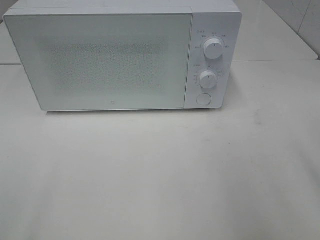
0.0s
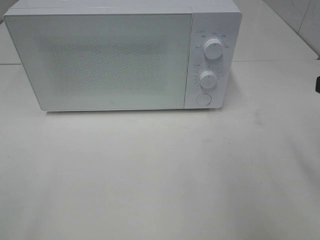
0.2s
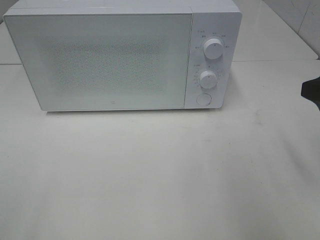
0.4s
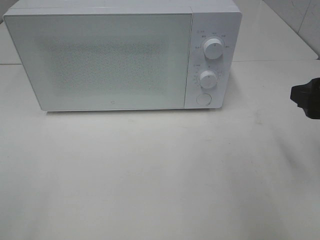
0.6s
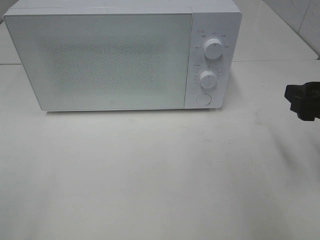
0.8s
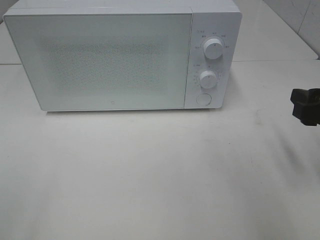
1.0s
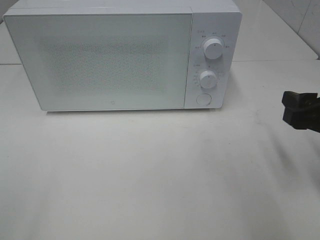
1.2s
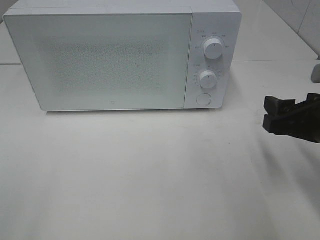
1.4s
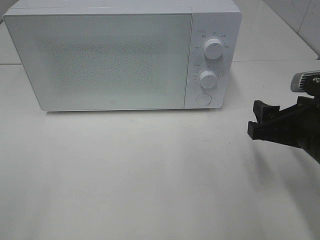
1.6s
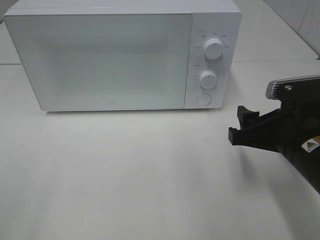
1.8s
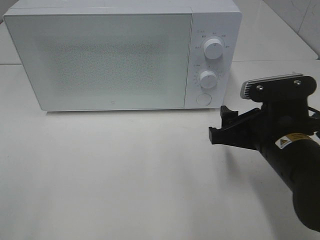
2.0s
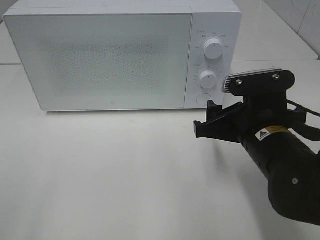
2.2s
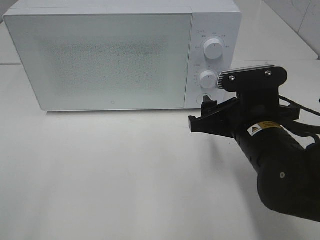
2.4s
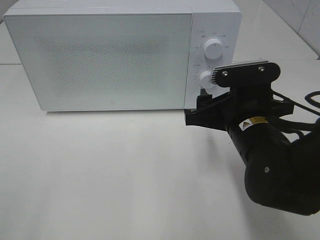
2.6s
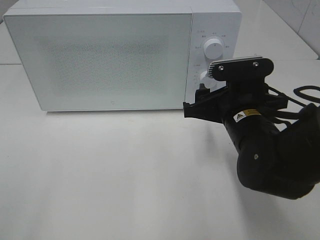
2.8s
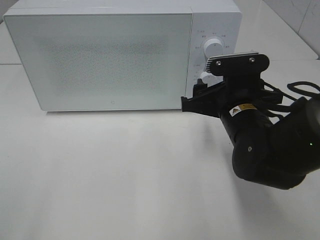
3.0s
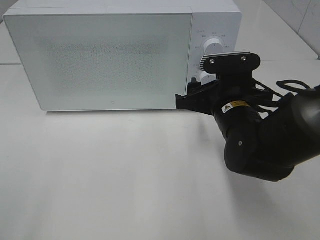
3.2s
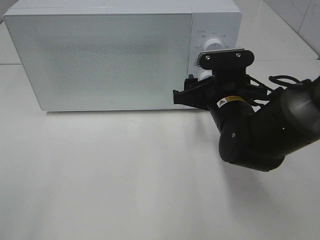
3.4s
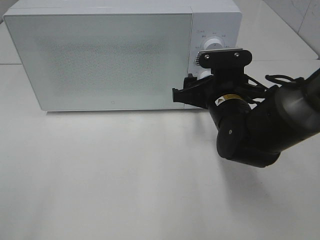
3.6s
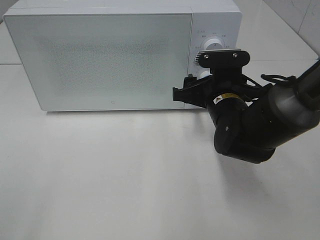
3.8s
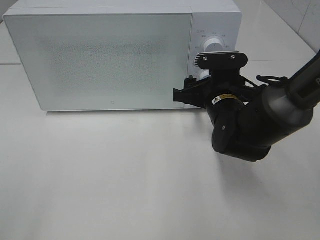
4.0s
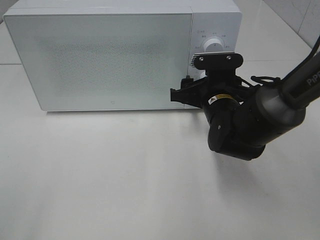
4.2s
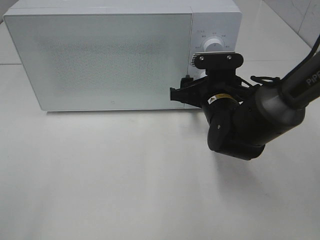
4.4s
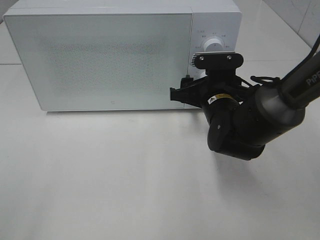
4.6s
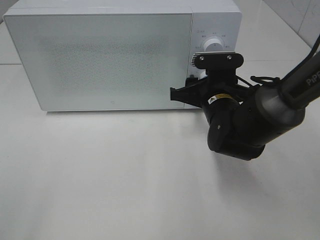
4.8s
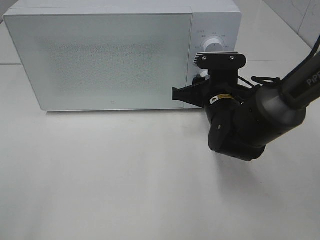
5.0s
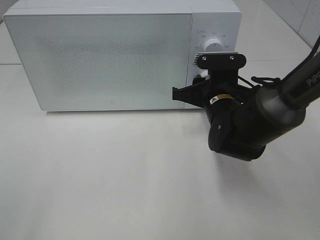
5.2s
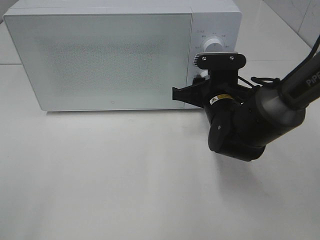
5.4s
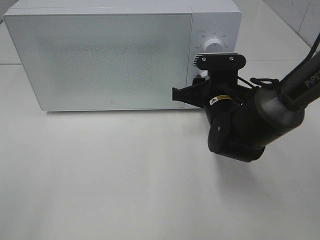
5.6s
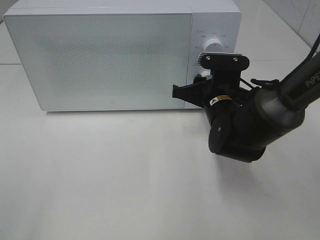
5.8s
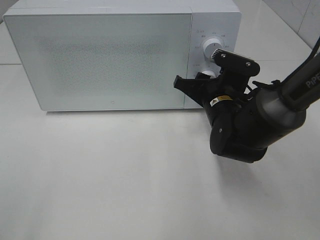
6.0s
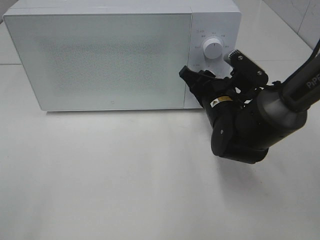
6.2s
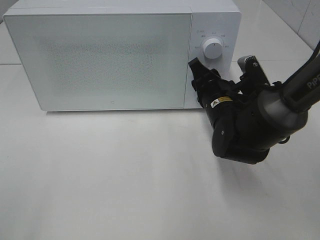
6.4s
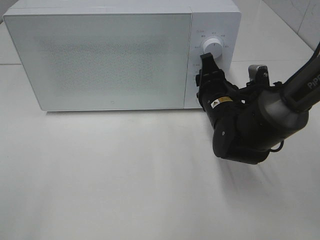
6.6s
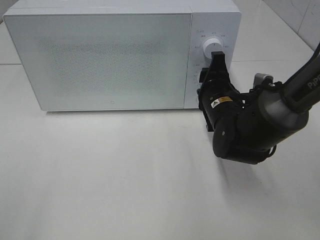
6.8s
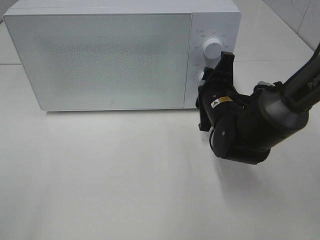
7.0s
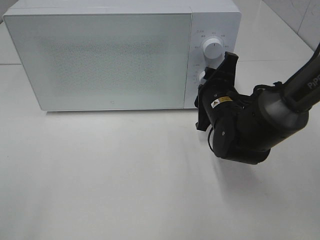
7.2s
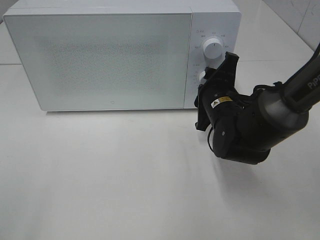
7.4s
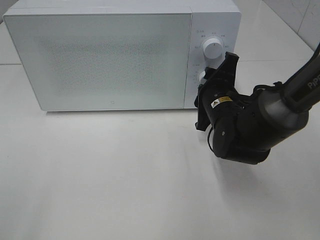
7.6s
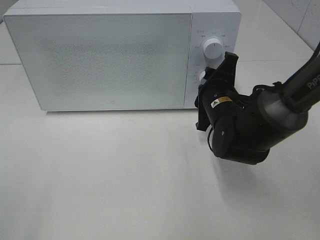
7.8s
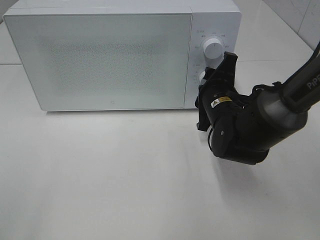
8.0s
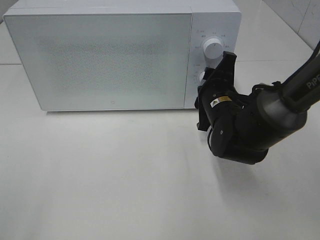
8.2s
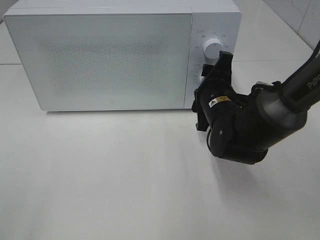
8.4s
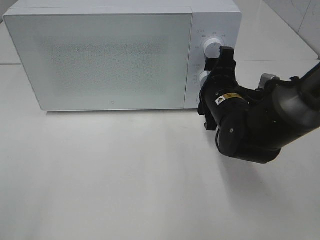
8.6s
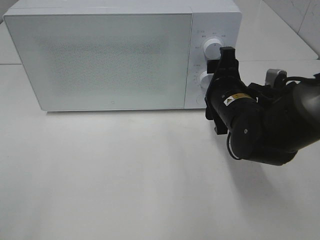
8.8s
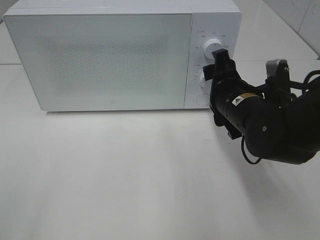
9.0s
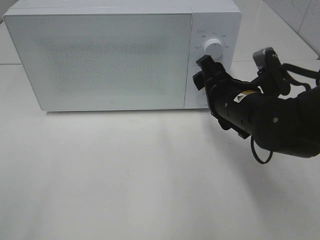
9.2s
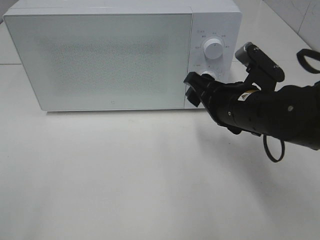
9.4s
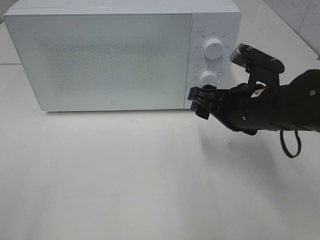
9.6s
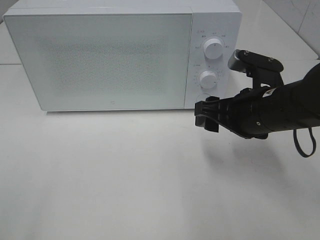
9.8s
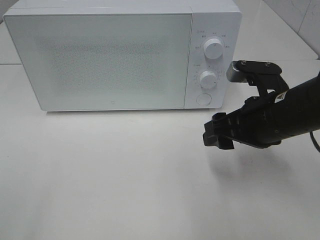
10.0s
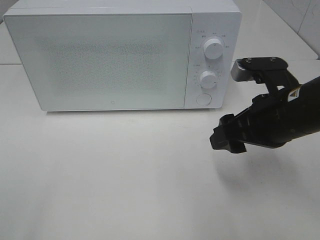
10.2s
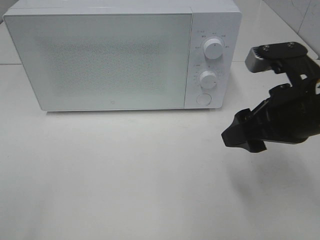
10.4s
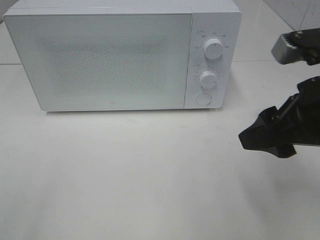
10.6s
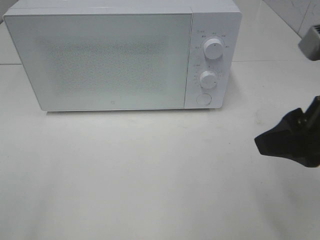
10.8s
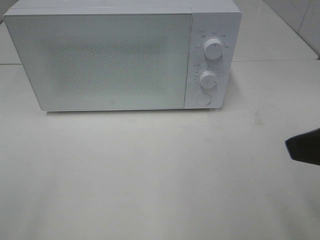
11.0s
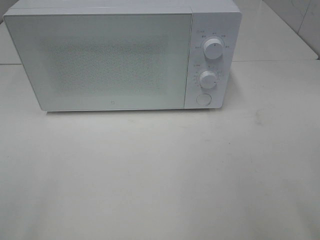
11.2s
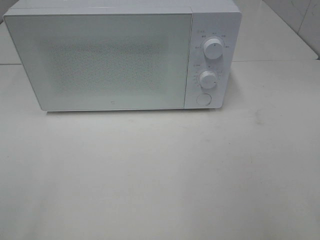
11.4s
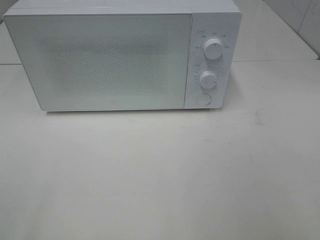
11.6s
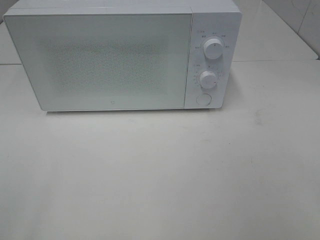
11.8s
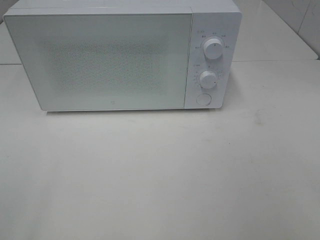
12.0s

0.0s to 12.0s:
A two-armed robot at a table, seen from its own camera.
Task of the whole recording: Heat the burger.
Step, 0.0s to 8.2s: Right hand: twist timer button.
0.0s to 1.6s: The right gripper is displaced downward and to the left by about 15 cm.
1.6s to 3.0s: The right gripper heads to the left and forward, covering about 10 cm.
3.0s to 4.4s: The right gripper goes roughly 5 cm forward.
4.4s to 6.0s: The right gripper closes up.
7.6s to 9.0s: The right gripper moves some 5 cm, and opens.
9.0s to 10.4s: The right gripper shifts roughly 10 cm backward, upward and to the right.
10.4s to 12.0s: The right gripper is displaced backward and to the right by about 20 cm.

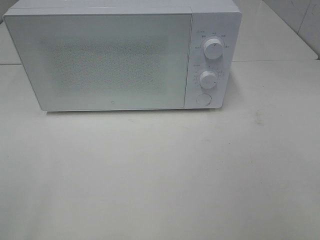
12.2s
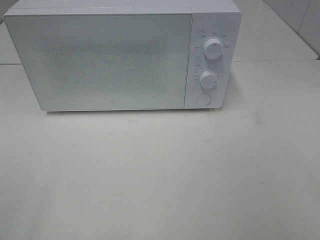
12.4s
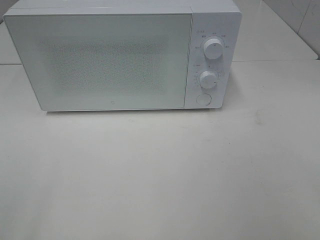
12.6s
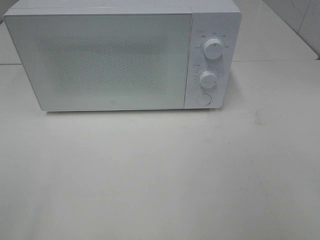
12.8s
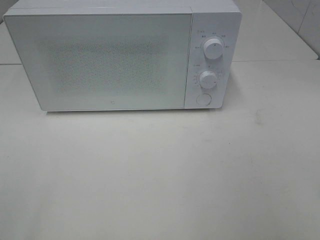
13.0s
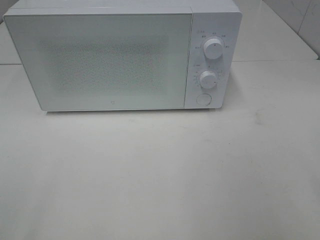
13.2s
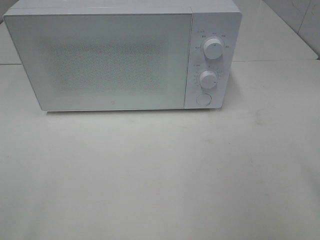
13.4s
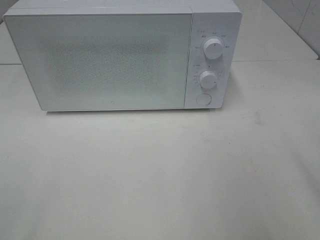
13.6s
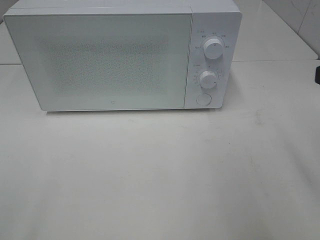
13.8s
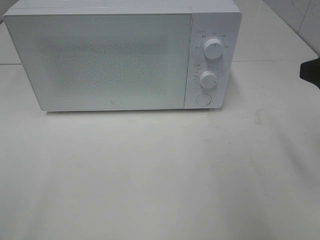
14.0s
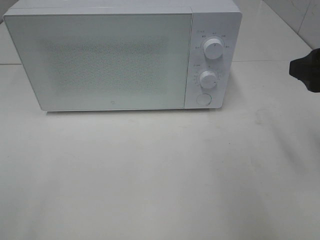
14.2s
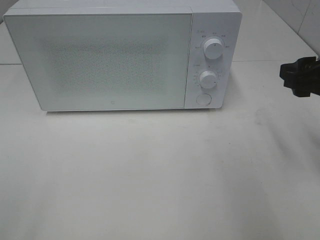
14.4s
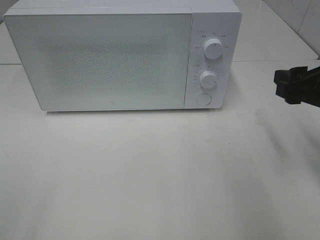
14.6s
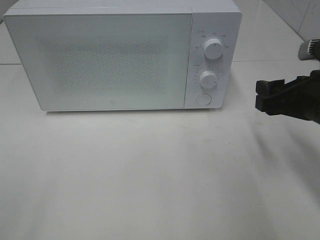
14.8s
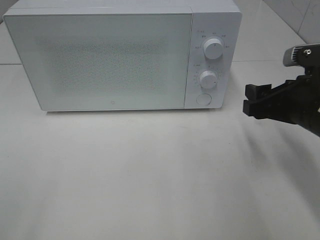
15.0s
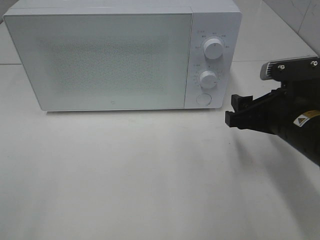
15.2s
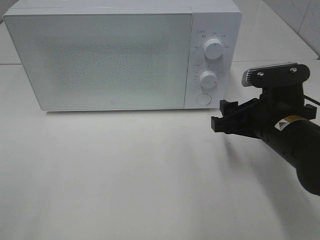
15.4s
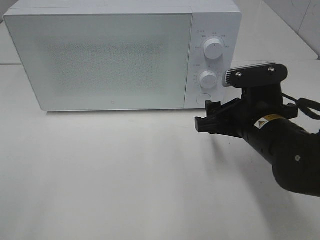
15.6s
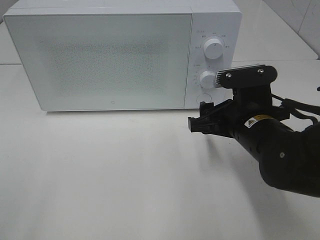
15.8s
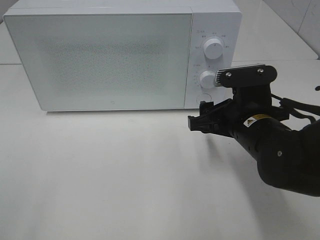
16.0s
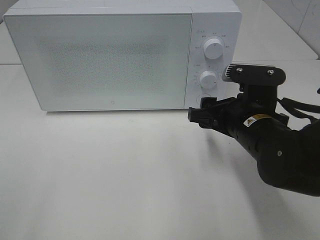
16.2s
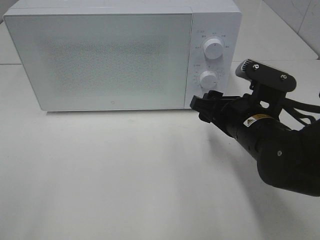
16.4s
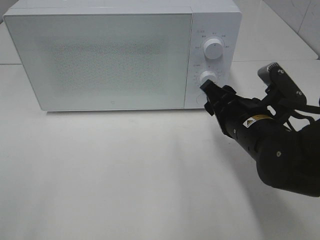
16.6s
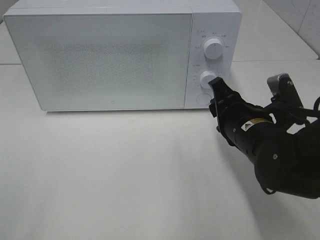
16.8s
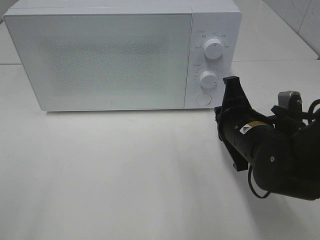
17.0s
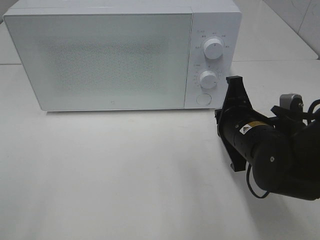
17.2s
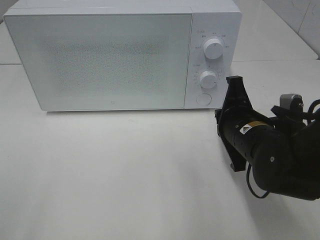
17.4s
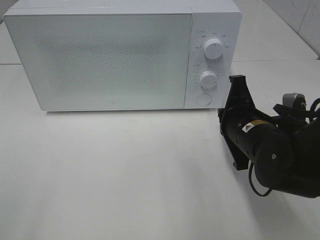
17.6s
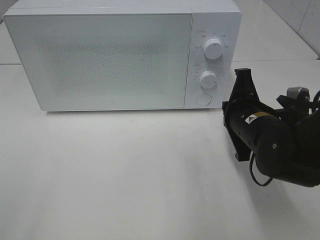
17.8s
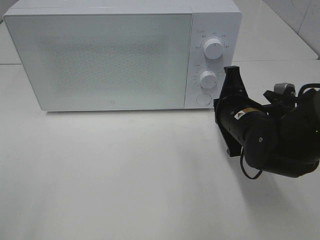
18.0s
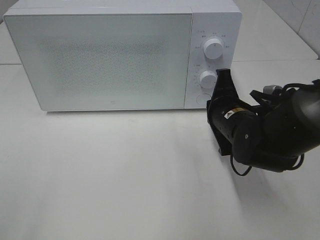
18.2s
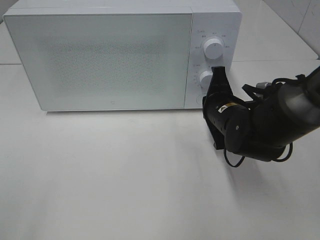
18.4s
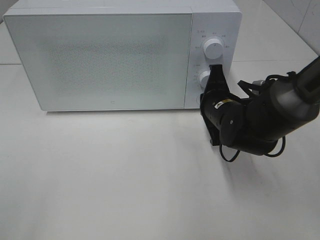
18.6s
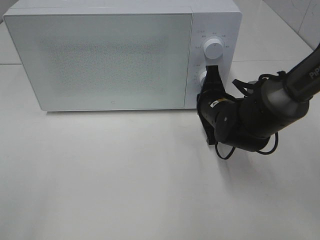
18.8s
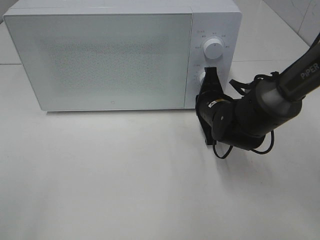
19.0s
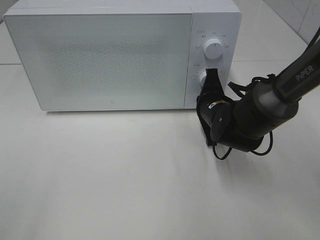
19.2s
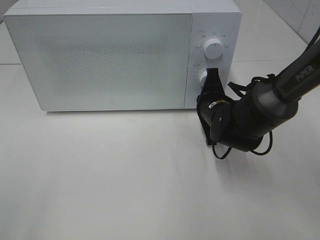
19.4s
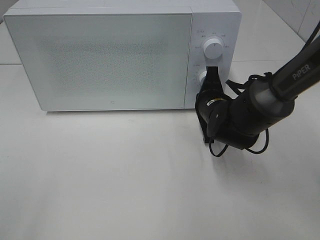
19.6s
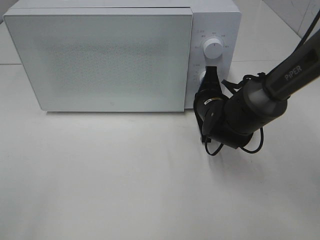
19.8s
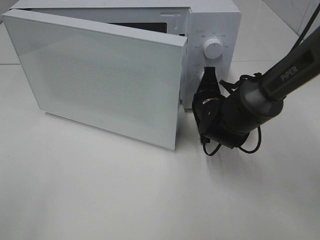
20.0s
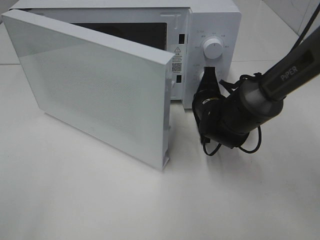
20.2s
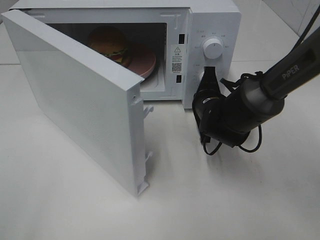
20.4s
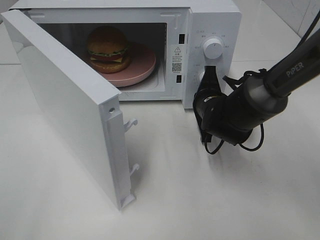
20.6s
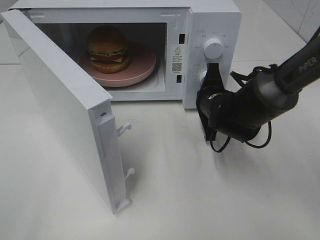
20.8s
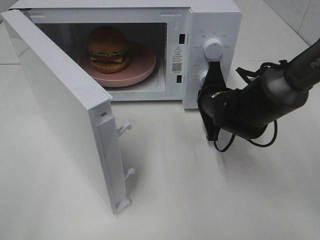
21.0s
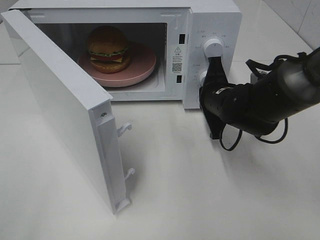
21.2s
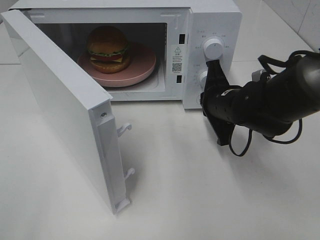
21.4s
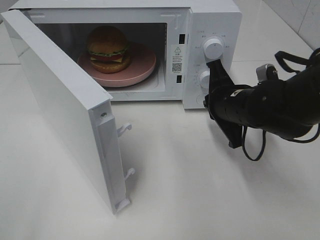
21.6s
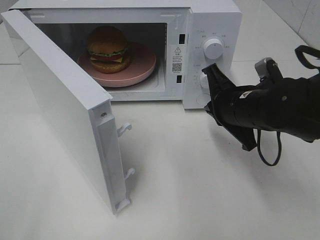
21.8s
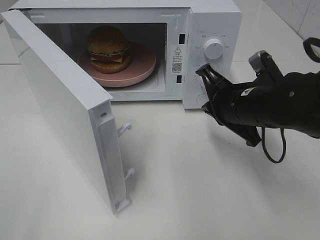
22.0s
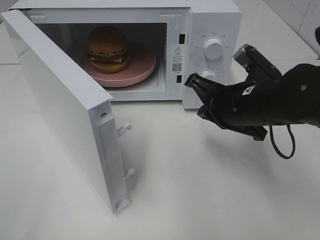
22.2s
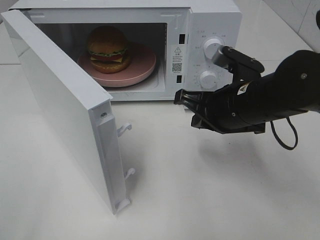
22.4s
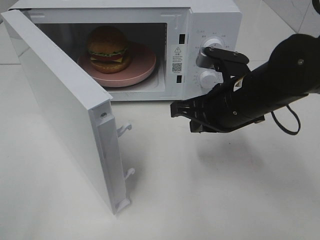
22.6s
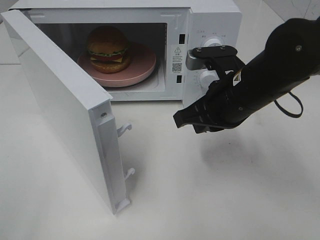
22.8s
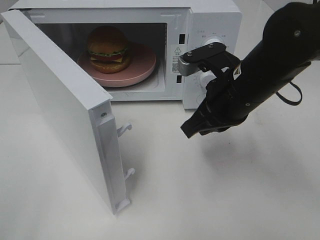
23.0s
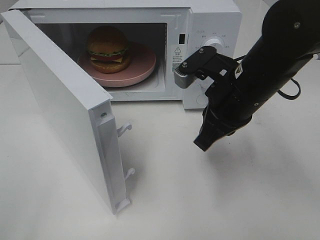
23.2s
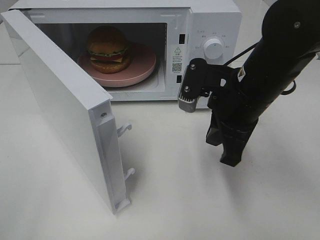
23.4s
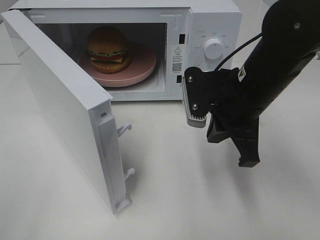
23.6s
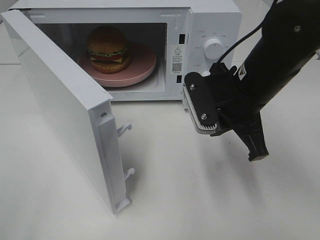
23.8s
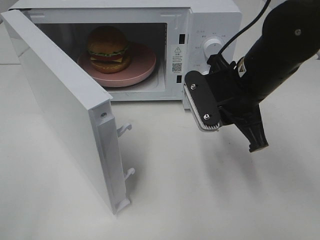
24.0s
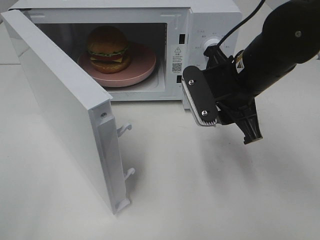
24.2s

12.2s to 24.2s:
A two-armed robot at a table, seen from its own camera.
Task of the whole recording: Heat the burger.
Step, 12.2s to 21.2s: Right hand: press the switch.
13.8s to 15.2s: The right gripper heads downward, forward and to the left, covering about 15 cm.
15.2s to 16.6s: The right gripper is displaced to the left by about 5 cm.
16.6s to 18.2s: The right gripper changes place by about 5 cm, and closes its fingers.
18.2s to 19.8s: The right gripper goes about 5 cm forward.
21.2s to 22.6s: The right gripper moves backward and upward, about 10 cm.
22.6s to 24.2s: The right gripper opens up.
